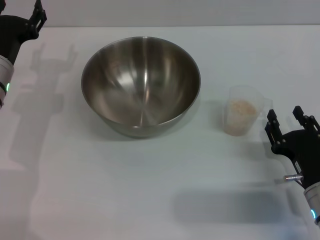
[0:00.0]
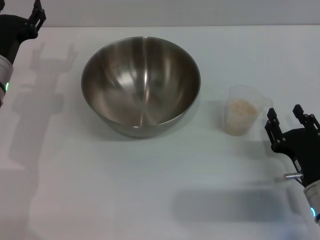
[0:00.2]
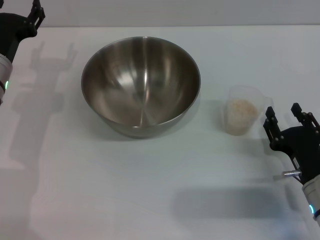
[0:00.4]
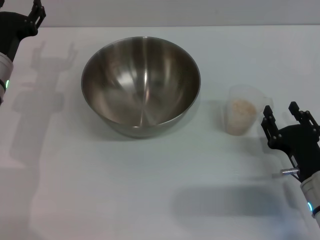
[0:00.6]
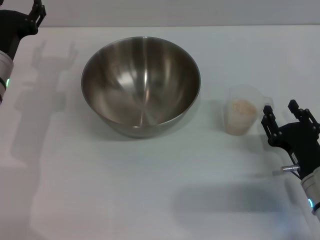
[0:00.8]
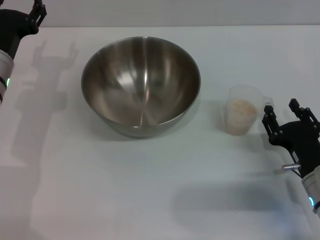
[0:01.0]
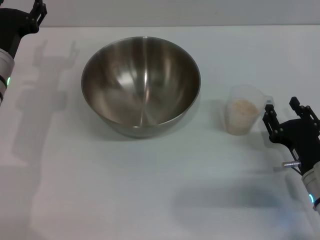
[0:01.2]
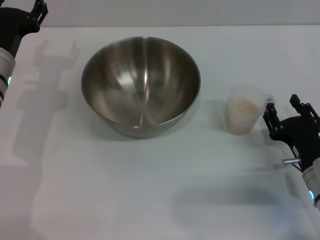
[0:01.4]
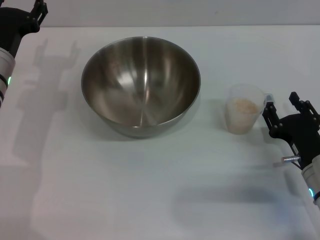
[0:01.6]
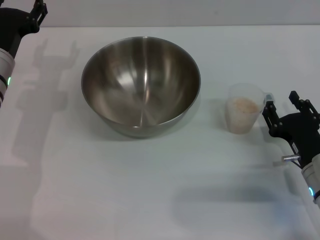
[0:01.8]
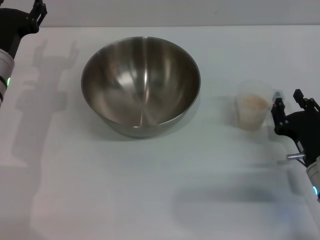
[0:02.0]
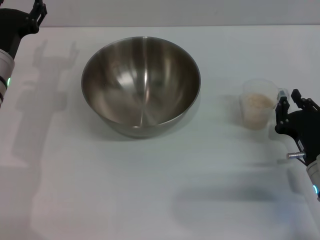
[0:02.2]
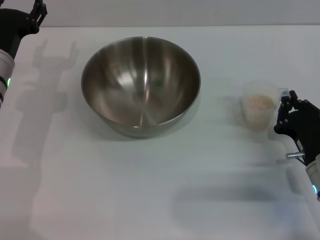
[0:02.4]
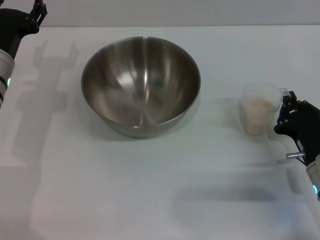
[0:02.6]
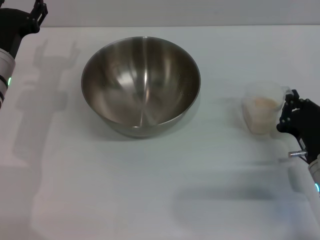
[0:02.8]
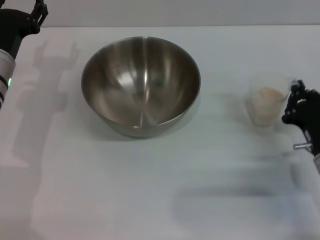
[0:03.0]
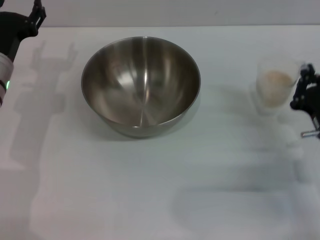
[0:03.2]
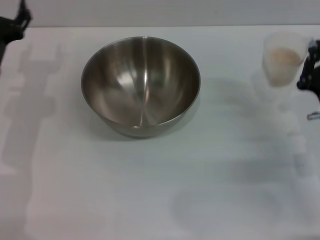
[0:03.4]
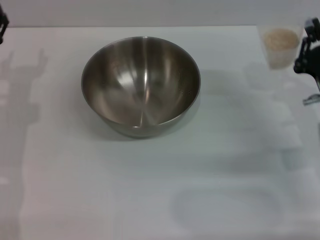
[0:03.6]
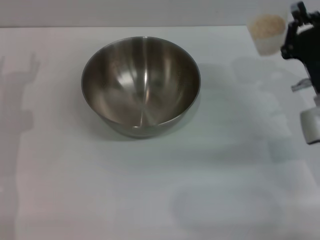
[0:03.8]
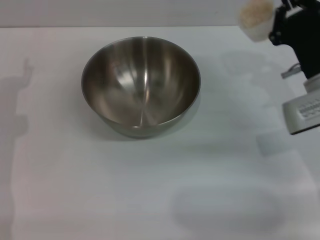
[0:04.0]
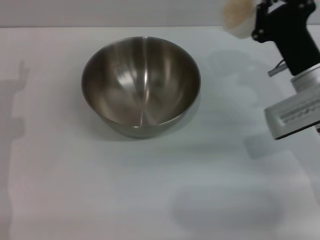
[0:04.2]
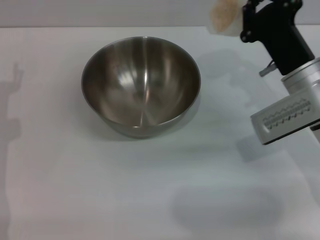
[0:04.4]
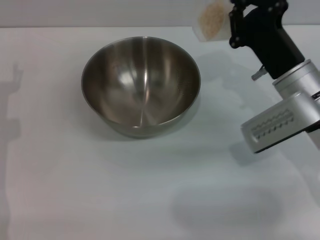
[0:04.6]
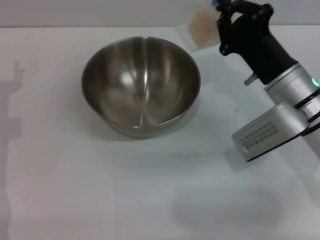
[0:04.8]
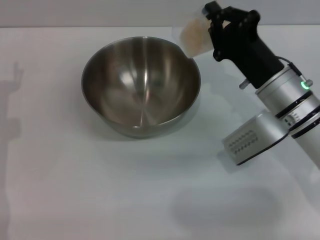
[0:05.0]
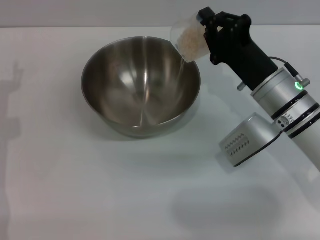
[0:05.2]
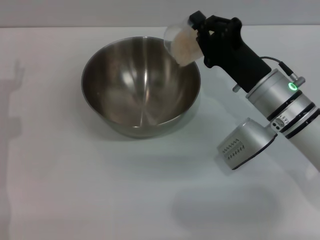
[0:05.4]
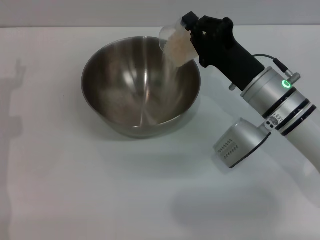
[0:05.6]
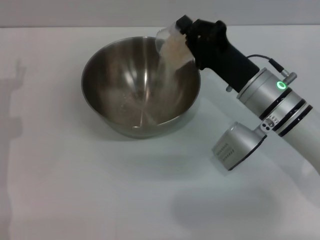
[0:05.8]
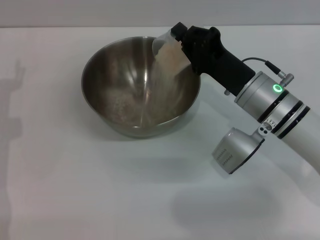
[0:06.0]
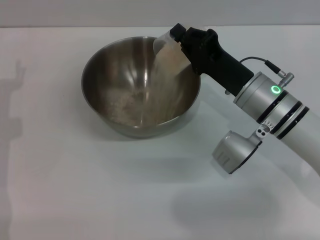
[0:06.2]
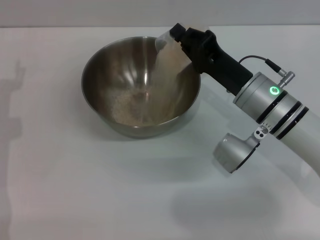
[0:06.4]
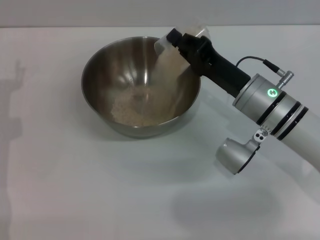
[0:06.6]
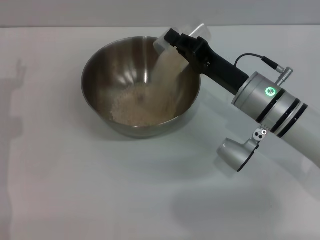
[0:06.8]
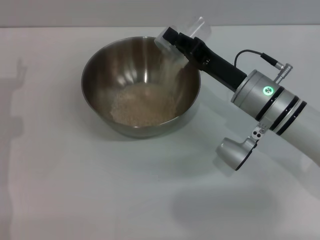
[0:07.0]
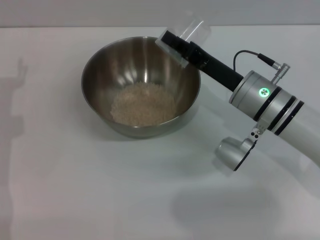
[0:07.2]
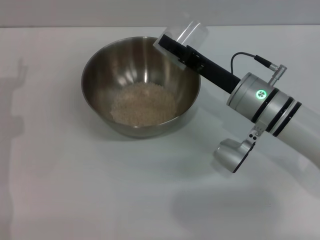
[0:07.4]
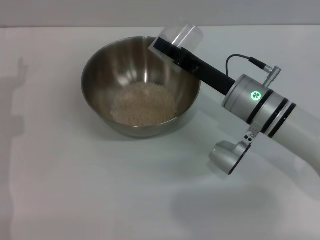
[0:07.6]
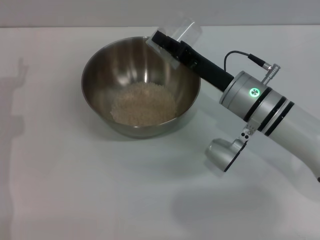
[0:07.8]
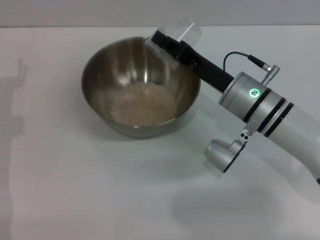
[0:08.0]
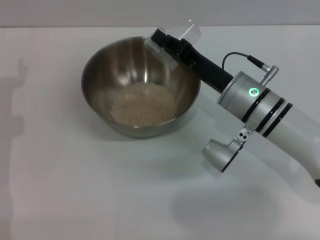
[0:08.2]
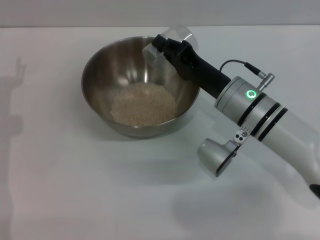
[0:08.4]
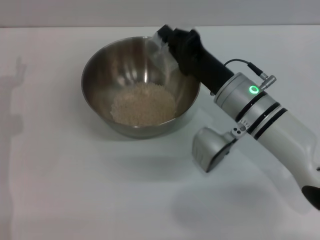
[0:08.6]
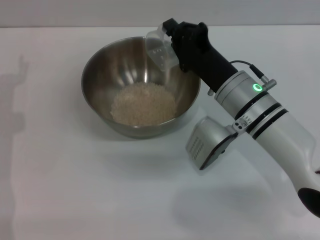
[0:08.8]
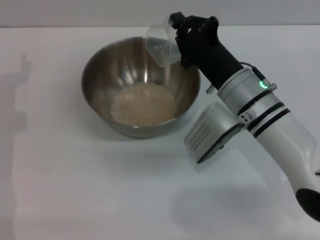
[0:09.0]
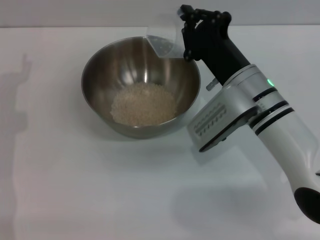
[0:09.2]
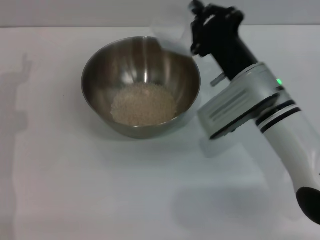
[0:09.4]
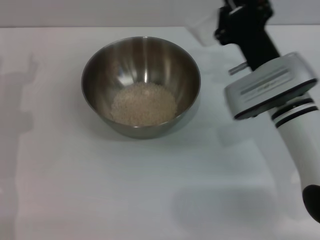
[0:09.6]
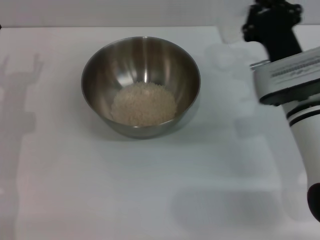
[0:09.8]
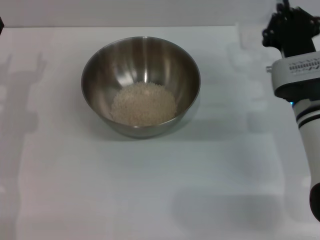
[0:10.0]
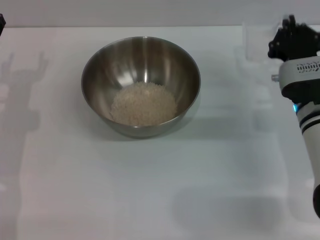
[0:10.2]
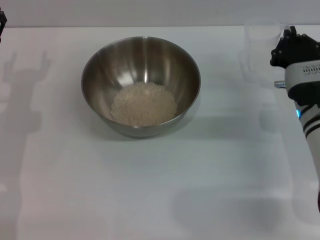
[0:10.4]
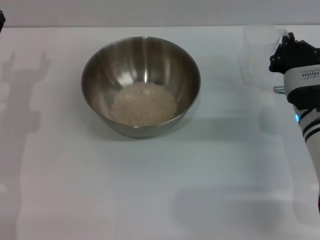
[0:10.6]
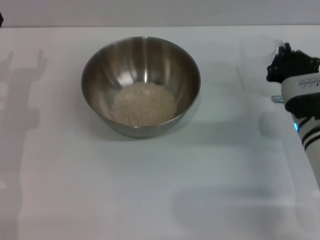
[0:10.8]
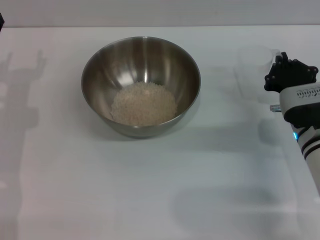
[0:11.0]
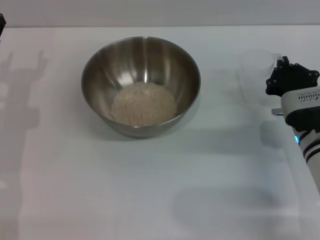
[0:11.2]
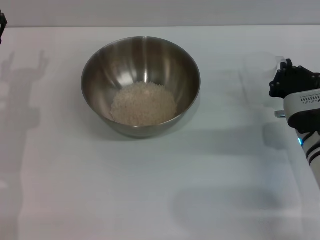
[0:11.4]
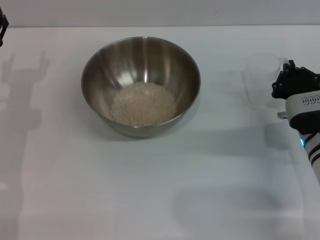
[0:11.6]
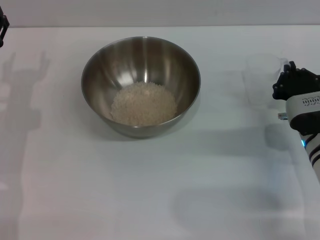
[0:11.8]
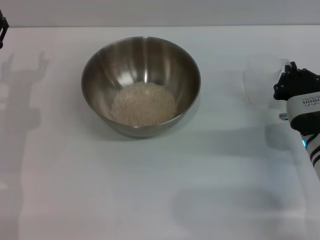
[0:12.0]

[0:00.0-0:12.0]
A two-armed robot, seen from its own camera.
Task of the whole recording: Place the bowl in the middle of the table with one hand and pour the rice from the grain cup into it with the other hand.
Step, 0.0 to 3.2 s: Pick up the cup with rice in it with the right gripper.
Step, 3.6 to 9.2 s: Pour the rice from the cup into the bowl with the right gripper.
0.0 to 1.6 s: The grippers stay close to where they were, moving slightly.
1.6 to 3.0 s: The right gripper closes up.
3.0 to 4.4 s: The right gripper goes about 10 cm forward and upward; the left gripper heads to the left and backward, covering some 10 cm.
4.4 to 6.0 s: The right gripper moves roughly 5 cm.
9.0 to 10.4 s: The right gripper is displaced to the right by about 10 cm.
10.4 to 12.0 s: There are only small adjustments of the grippers.

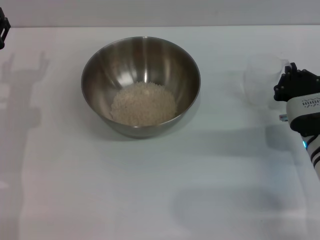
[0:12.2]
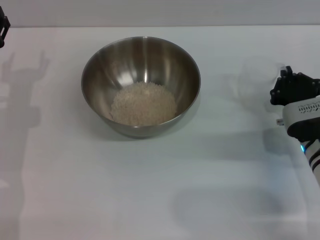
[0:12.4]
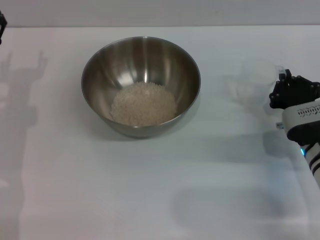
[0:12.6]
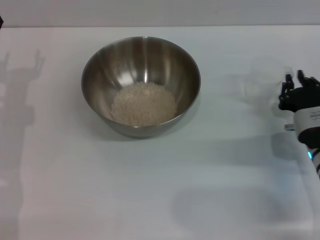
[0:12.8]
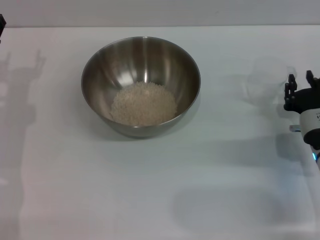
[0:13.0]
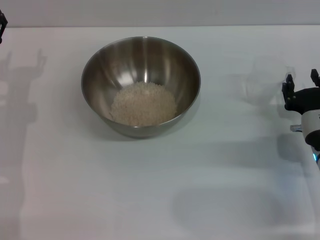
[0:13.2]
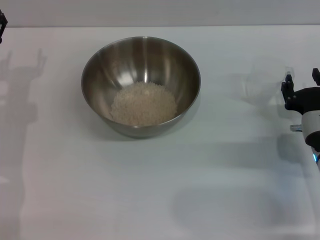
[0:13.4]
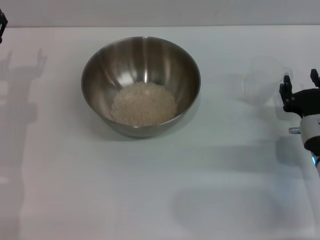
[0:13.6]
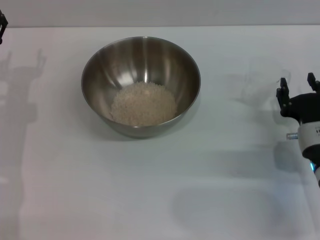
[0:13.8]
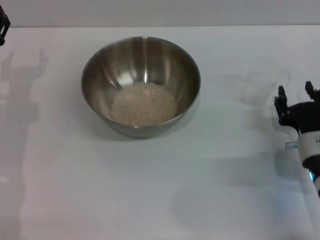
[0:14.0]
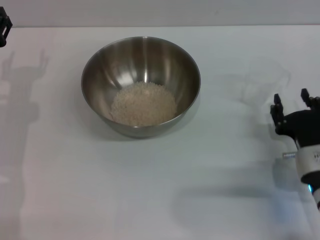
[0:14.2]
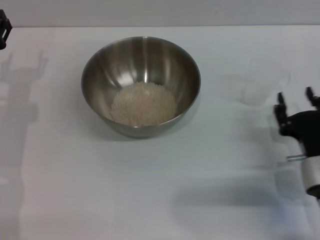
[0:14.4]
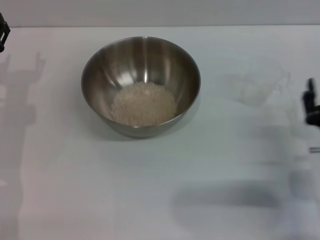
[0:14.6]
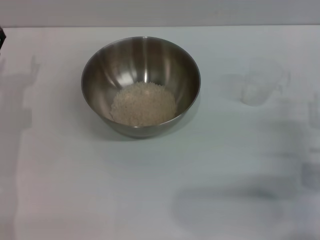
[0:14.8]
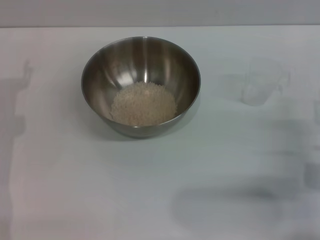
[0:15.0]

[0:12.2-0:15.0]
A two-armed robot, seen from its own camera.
Task of the whole recording: Place the bowl in the middle of the table with one hand and pour the rice from the grain cup into it with the other hand.
12.2 to 13.6 s: The right gripper opens its fingers.
13.6 to 15.0 s: The right gripper changes place by about 5 cm.

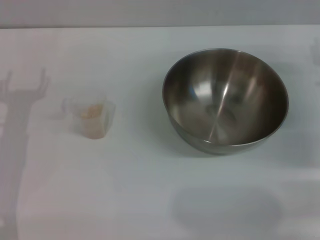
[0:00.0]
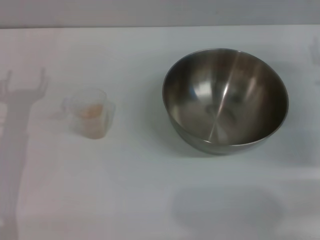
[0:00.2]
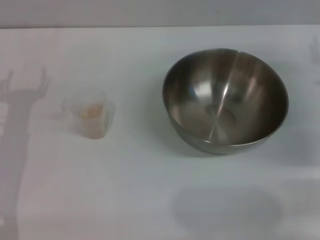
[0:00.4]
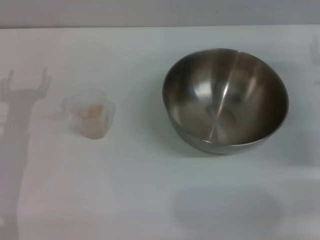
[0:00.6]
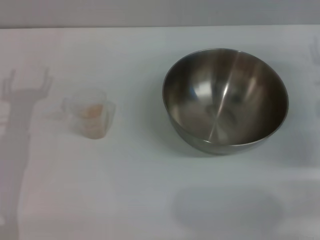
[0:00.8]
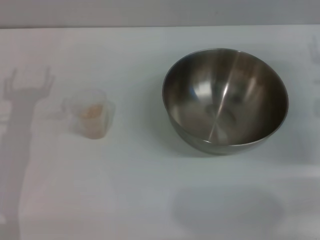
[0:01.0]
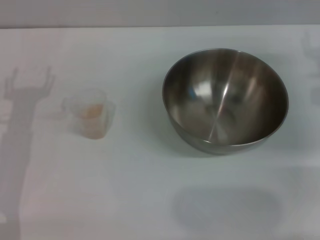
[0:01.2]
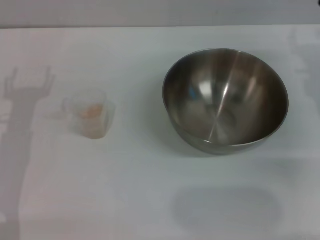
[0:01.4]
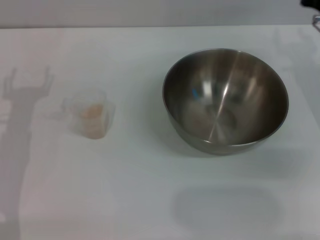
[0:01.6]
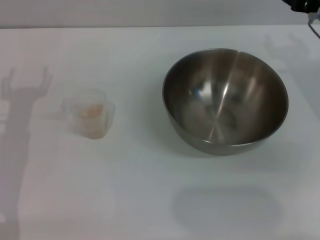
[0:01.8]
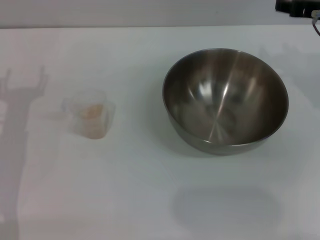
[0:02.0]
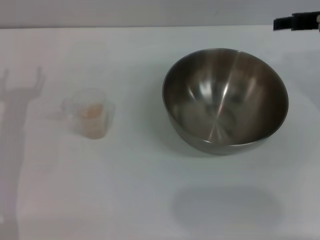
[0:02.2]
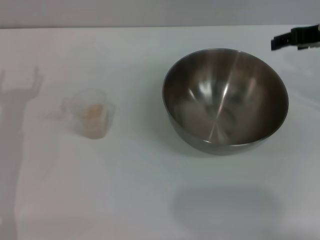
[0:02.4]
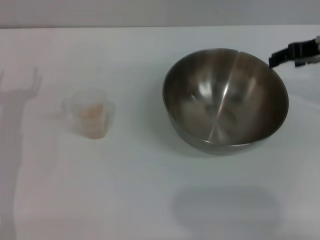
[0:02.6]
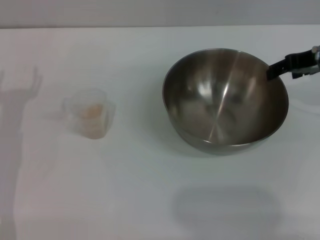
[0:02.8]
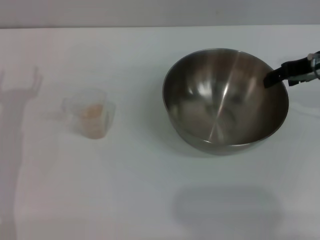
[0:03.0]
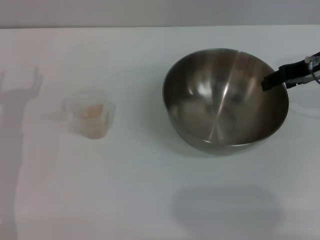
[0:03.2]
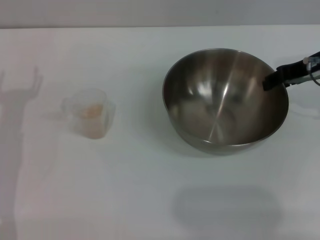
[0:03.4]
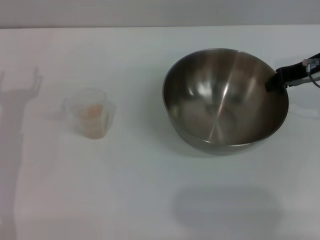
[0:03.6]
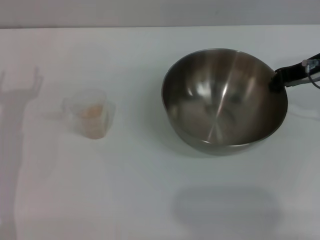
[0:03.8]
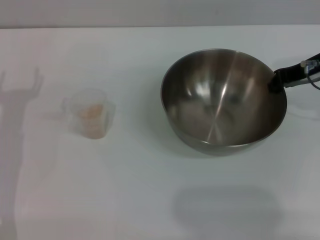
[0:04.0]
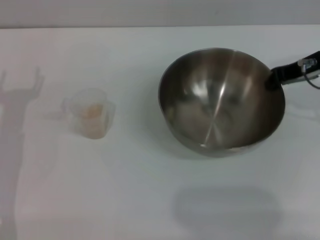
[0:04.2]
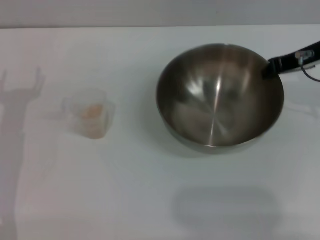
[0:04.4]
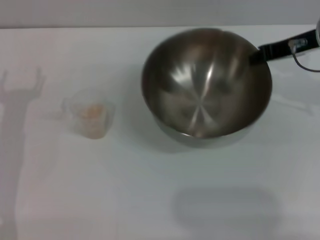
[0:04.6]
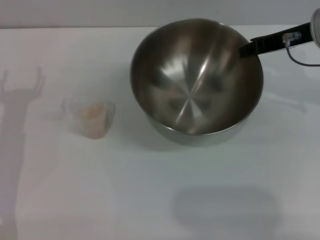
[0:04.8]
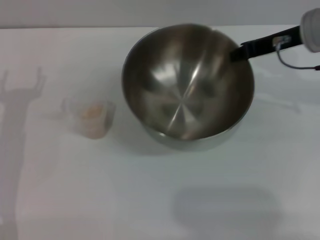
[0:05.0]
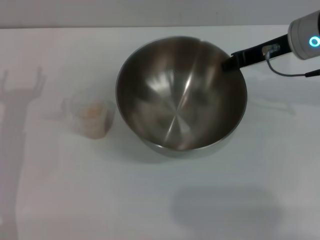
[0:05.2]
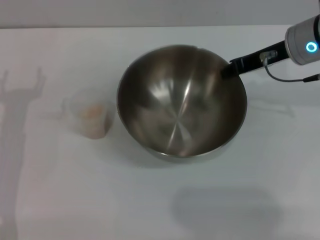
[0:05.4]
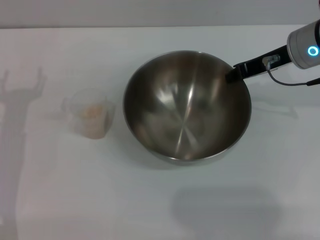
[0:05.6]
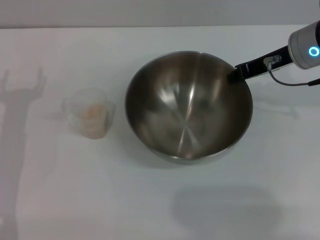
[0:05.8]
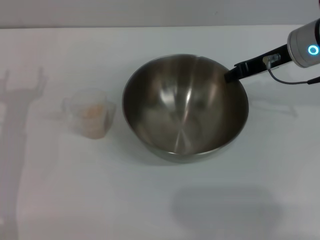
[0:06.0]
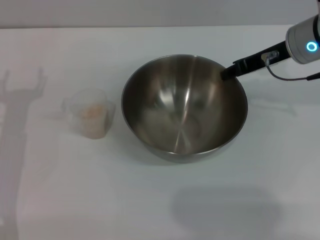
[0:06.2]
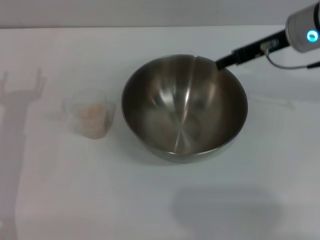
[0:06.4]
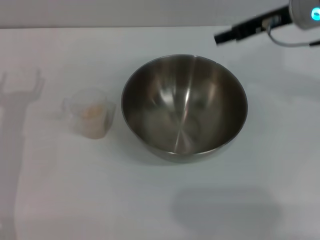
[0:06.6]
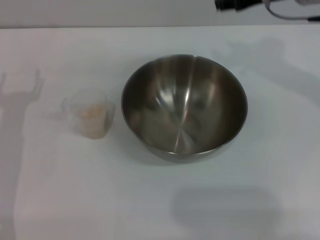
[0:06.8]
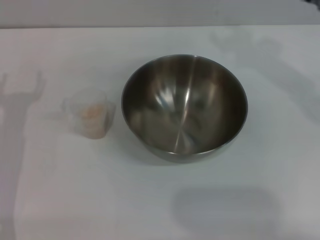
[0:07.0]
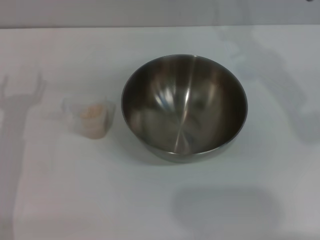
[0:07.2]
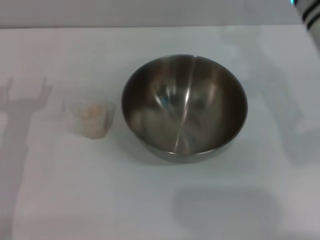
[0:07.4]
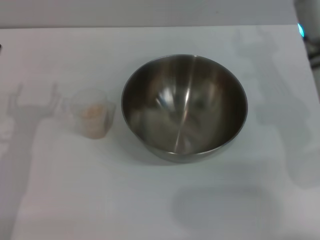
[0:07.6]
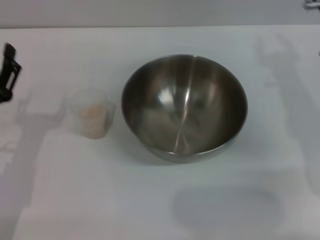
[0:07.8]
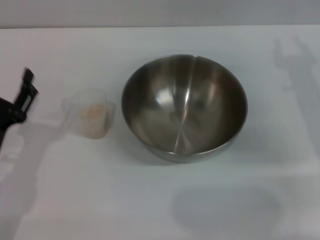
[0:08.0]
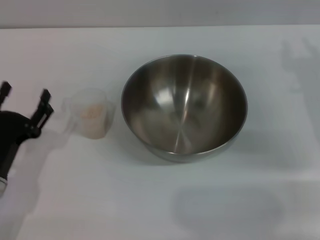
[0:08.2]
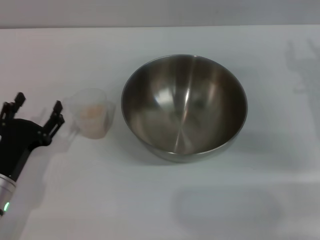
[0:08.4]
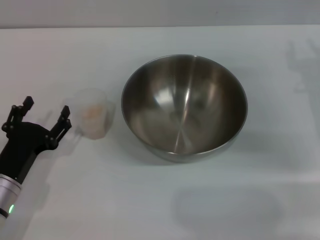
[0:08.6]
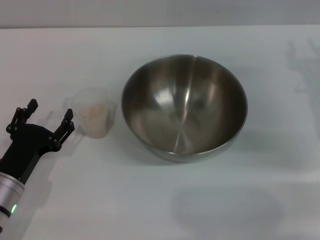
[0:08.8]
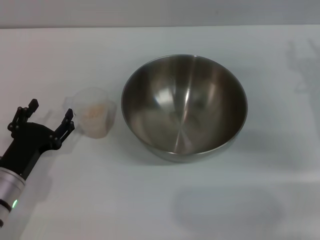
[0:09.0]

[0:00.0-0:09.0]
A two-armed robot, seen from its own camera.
Task of the whole recording: Place the bowl in the middle of the table with one hand and pour the rice from the grain cup into it with the other hand.
Step, 0.0 to 4.6 s: Pick up the bowl with the right gripper.
Step, 4.8 to 6.6 s: Place the bowl in the center of view with the right gripper.
0.0 to 1.6 s: The right gripper shifts by approximately 10 cm.
1.6 to 3.0 s: The right gripper heads upward, covering approximately 5 cm.
3.0 to 4.4 s: The right gripper closes up.
4.4 to 6.0 s: There are only small adjustments of the grippers.
6.0 to 7.6 s: The right gripper opens up.
7.6 to 9.0 s: The right gripper is displaced to the right and downward by about 10 cm, while the left gripper moves downward, approximately 5 cm.
